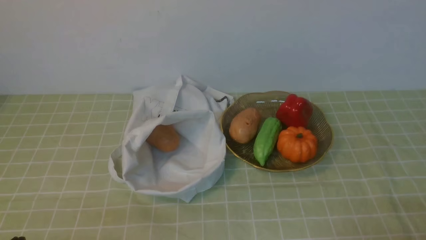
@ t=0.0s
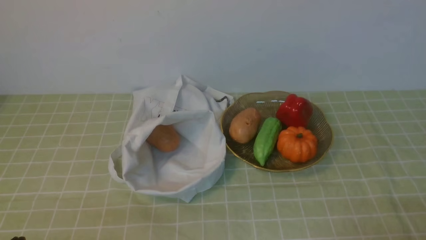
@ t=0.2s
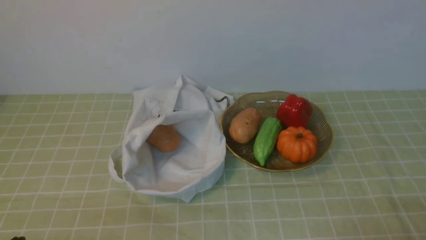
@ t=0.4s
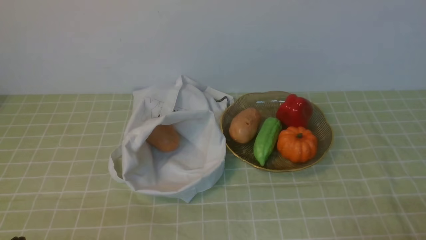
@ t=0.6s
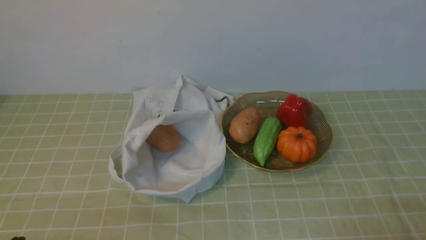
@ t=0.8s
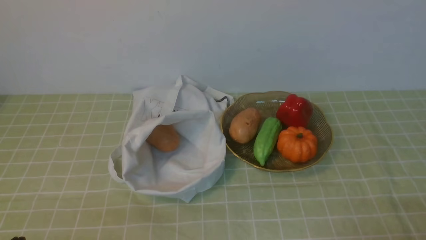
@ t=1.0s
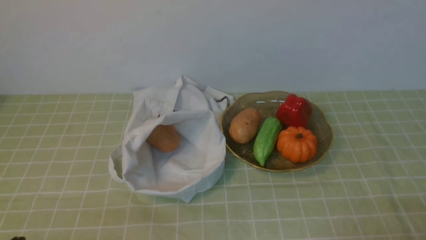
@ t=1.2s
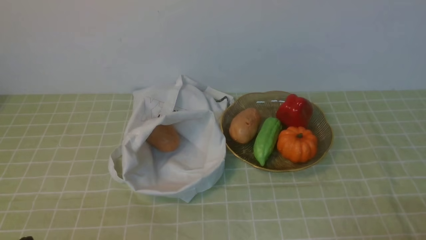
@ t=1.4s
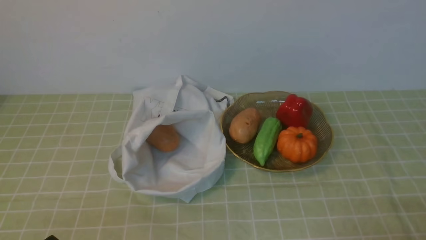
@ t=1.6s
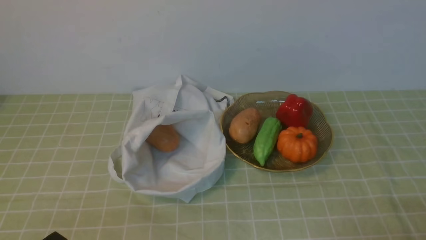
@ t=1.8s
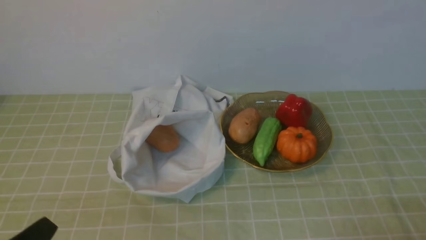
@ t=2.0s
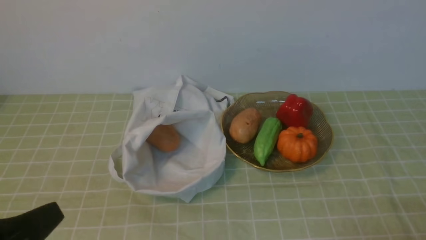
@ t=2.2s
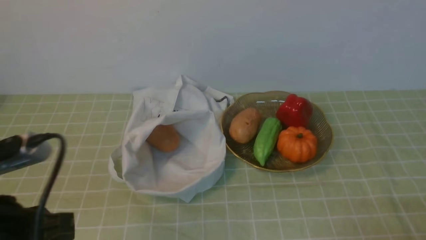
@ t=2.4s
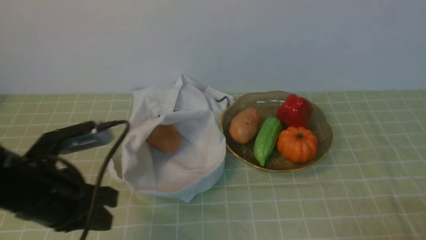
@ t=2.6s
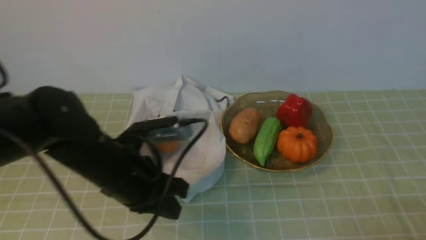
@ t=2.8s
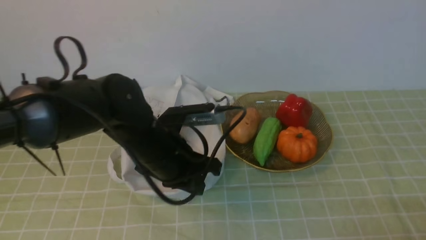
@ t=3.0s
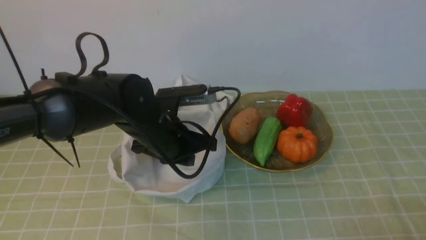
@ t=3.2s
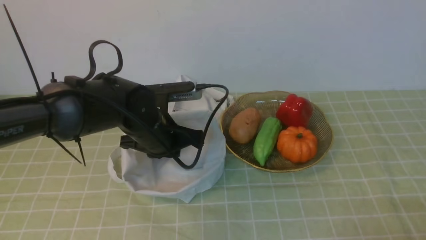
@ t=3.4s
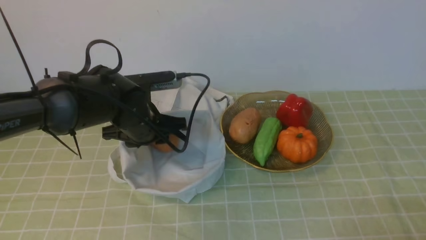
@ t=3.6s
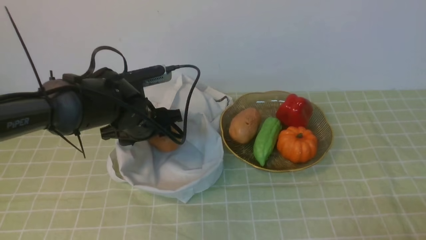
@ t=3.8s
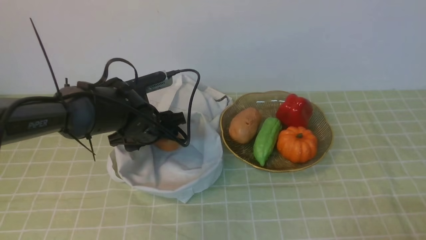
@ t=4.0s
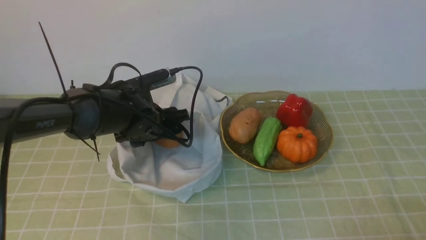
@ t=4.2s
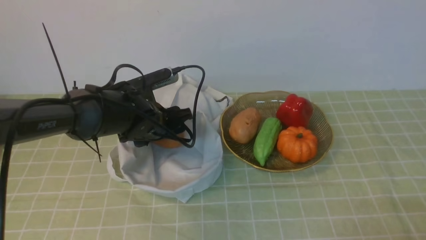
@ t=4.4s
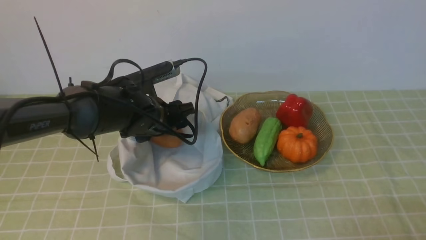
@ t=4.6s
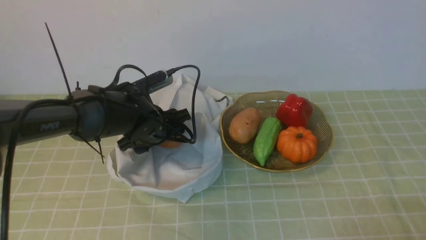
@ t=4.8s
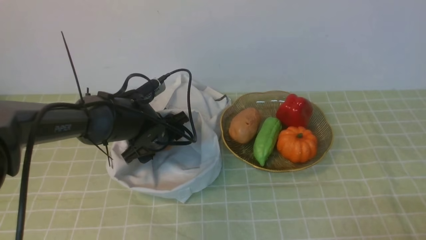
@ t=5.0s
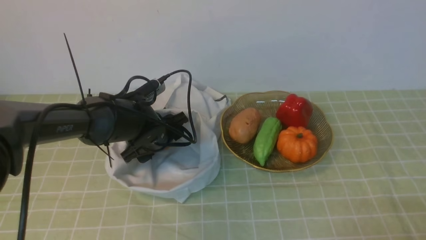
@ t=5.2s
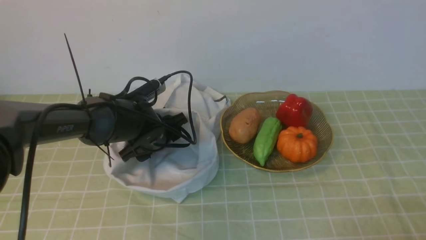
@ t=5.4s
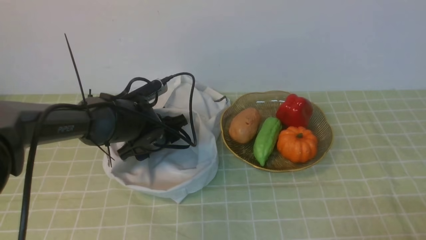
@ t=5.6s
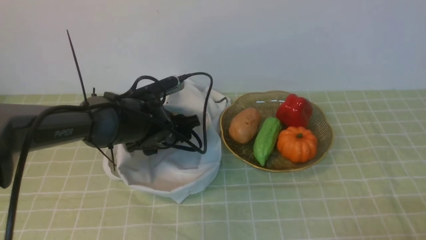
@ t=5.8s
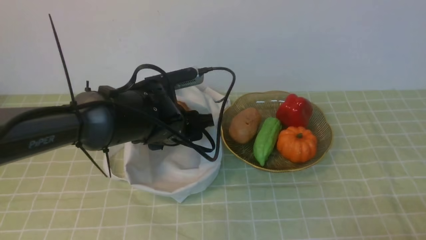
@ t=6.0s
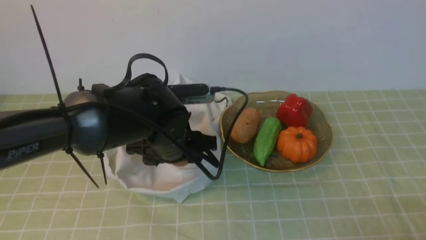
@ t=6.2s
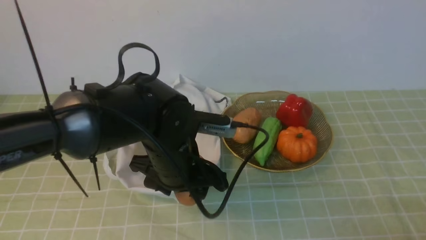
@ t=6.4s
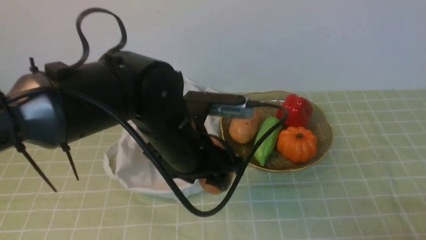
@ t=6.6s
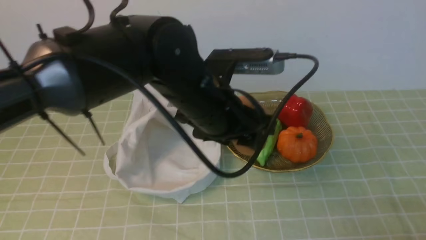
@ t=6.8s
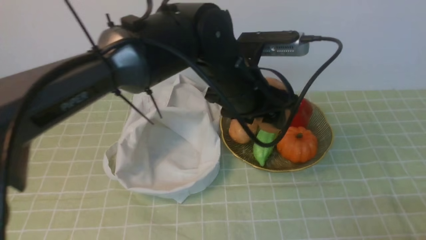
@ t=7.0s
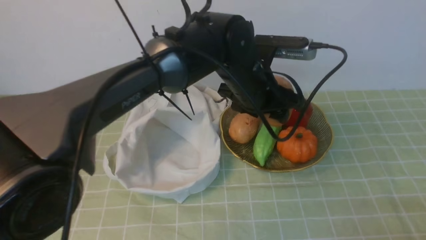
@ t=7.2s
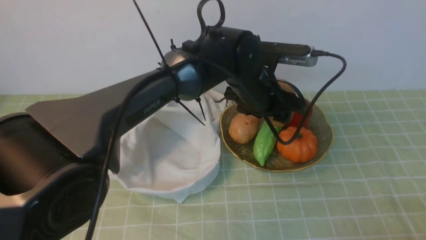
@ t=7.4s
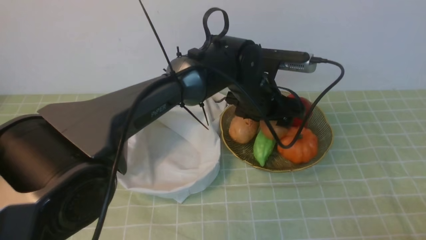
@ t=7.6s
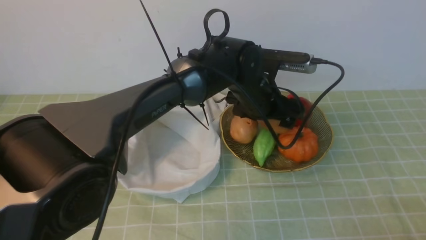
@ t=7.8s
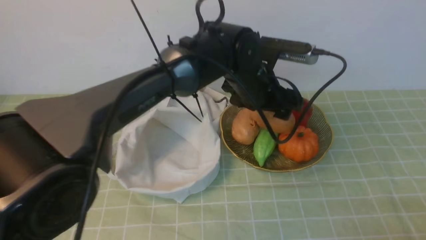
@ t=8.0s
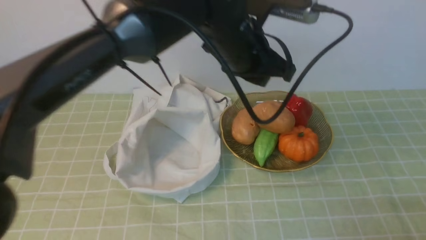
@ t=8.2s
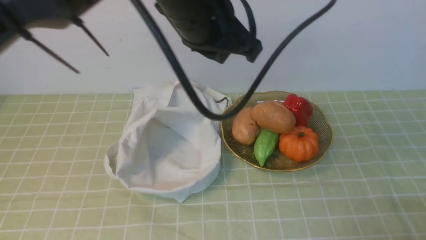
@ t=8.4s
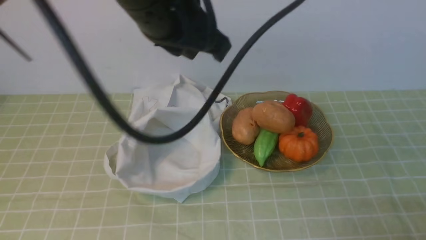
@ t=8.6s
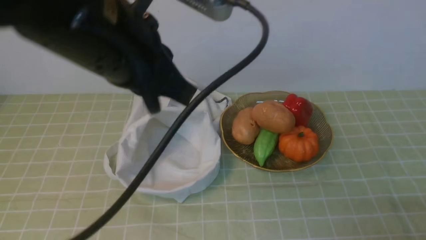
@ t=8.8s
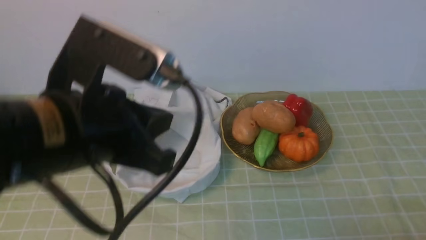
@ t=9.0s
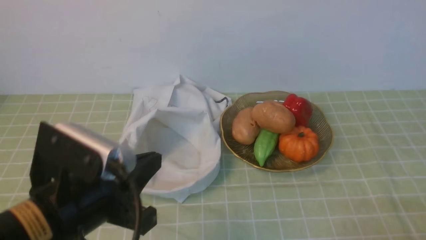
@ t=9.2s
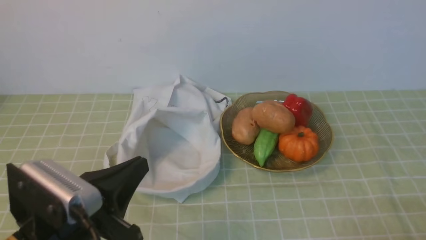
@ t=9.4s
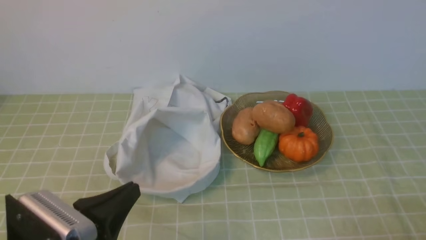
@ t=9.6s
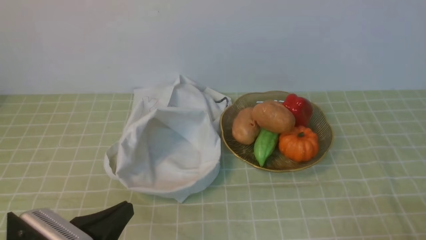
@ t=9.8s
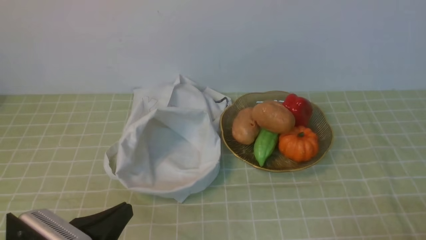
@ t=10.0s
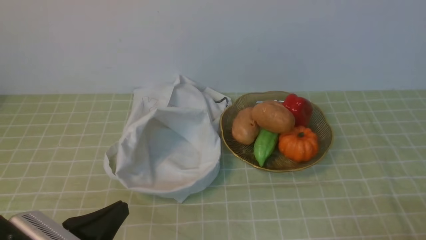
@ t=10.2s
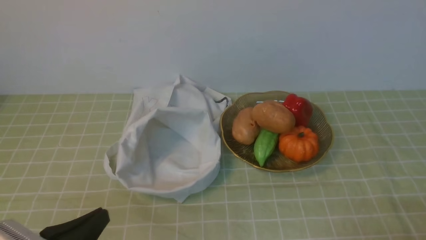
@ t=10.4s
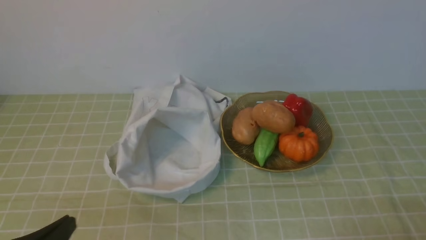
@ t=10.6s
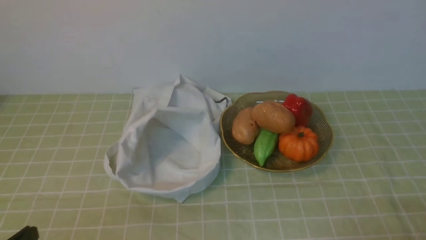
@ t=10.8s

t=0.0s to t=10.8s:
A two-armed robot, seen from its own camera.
Task of the whole recording: take vegetables from bag on green coffee tablecloth place on plate.
Step, t=0.0s to t=5.2s: Grasp the potato with left gripper.
Step, t=5.4s to t=8.0s: Place the potato on the plate with left gripper.
t=1.6s to t=3.0s: The left gripper is displaced forward and to the right by approximately 30 cm.
t=3.0s to t=4.6s: The left gripper heads forward, covering some 10 cm, and opens up.
t=4.6s to t=6.2s: The left gripper goes roughly 10 cm backward.
t=6.2s to t=7.8s: The left gripper moves to the right and forward, some 15 cm.
t=7.8s to t=9.2s: The left gripper travels backward and to the left by approximately 30 cm, and closes up.
t=9.2s to t=10.8s: The left gripper is displaced to the left, downward and backward by roughly 15 cm.

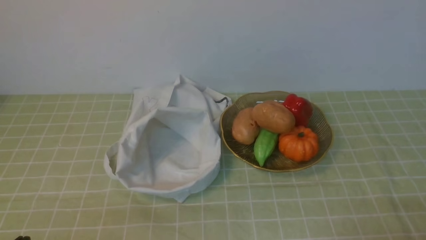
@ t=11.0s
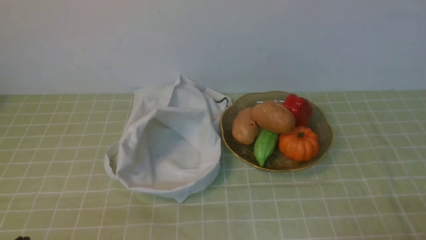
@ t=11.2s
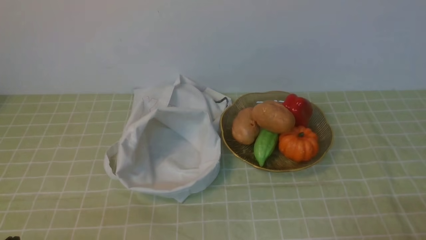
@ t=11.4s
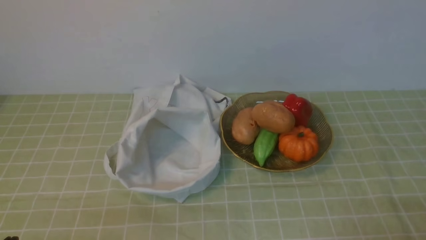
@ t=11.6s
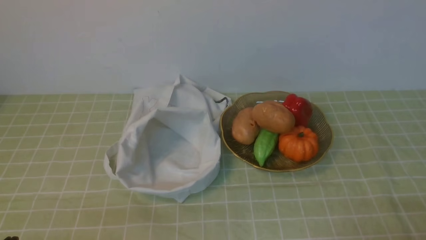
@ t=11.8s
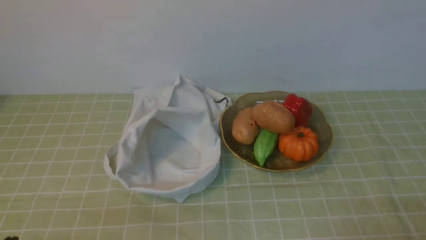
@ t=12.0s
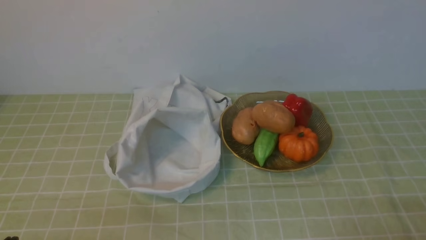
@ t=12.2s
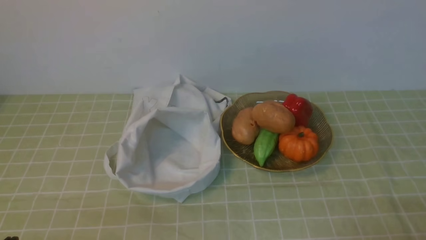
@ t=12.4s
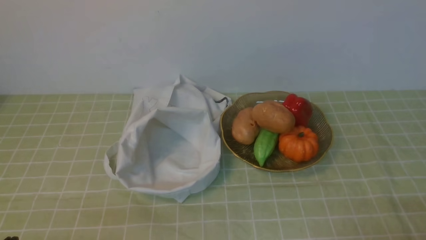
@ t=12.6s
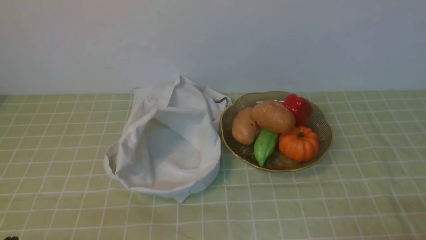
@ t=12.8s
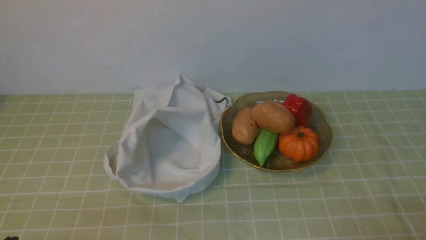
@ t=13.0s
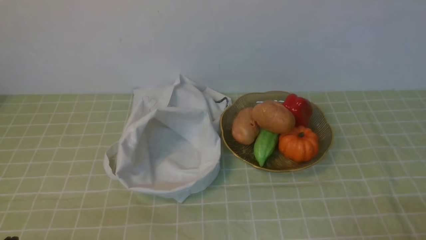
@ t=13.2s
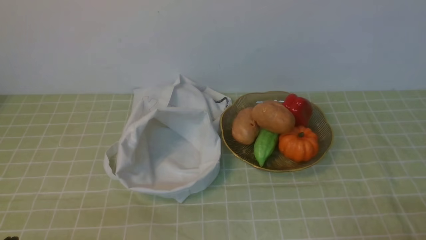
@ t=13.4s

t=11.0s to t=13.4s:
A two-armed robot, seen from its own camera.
Task of the whole recording: take vegetables from bag on green coffee tablecloth place on plate.
t=12.2s to t=13.4s: Both grippers stay put.
